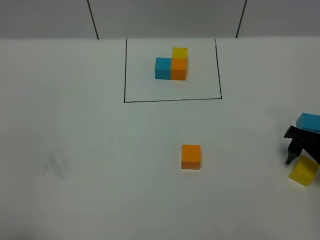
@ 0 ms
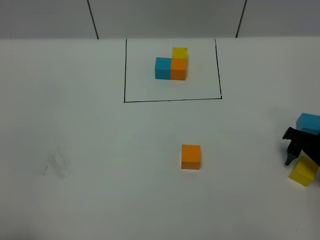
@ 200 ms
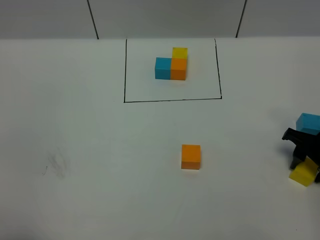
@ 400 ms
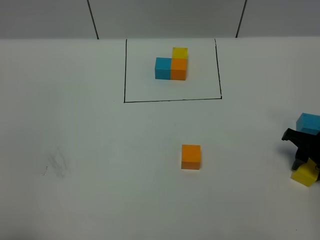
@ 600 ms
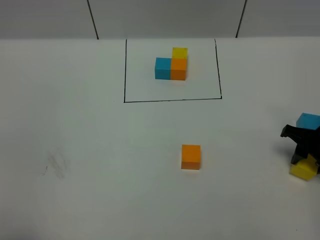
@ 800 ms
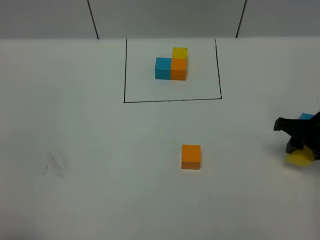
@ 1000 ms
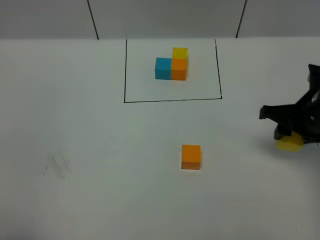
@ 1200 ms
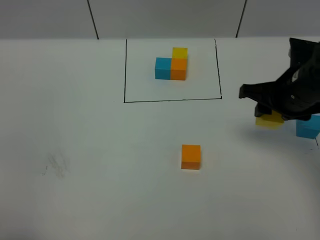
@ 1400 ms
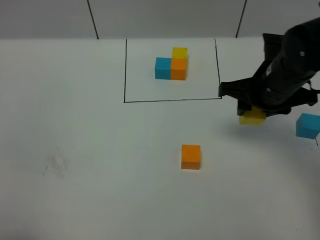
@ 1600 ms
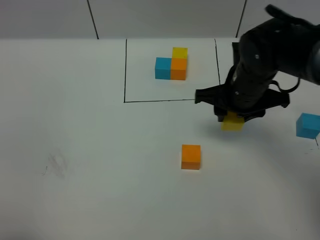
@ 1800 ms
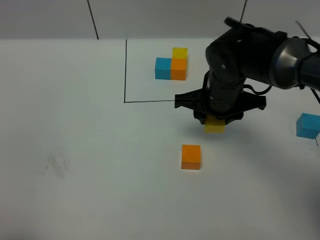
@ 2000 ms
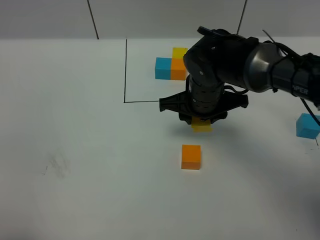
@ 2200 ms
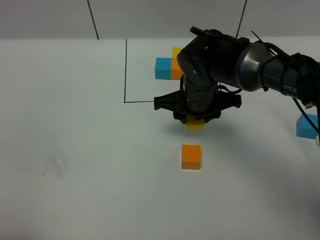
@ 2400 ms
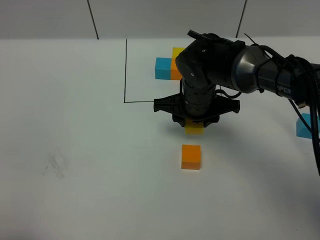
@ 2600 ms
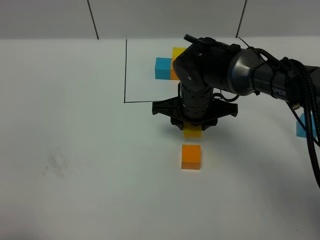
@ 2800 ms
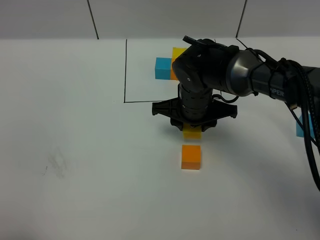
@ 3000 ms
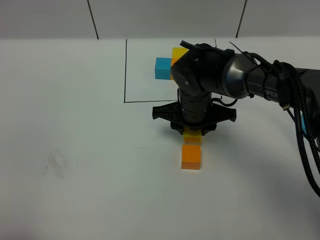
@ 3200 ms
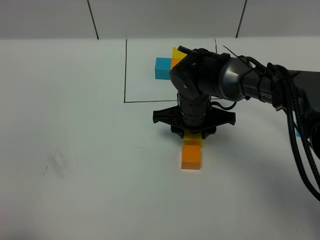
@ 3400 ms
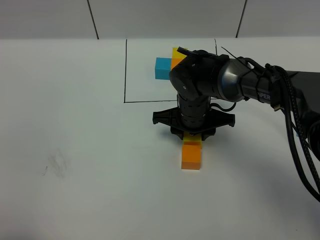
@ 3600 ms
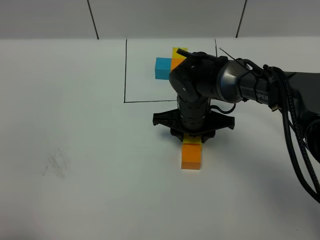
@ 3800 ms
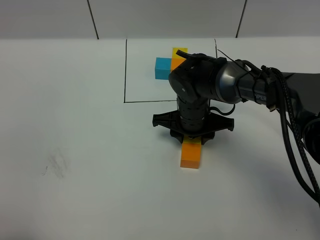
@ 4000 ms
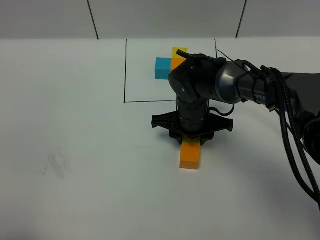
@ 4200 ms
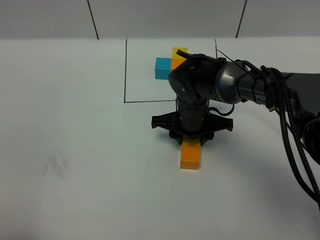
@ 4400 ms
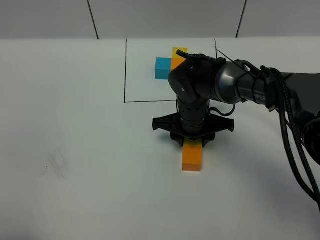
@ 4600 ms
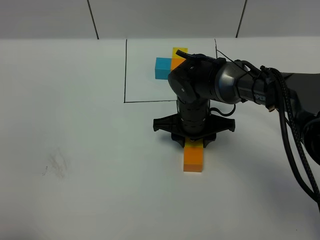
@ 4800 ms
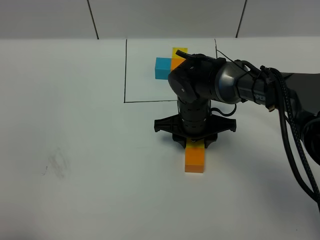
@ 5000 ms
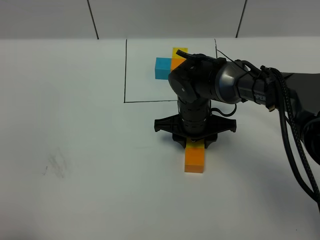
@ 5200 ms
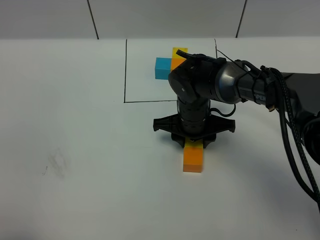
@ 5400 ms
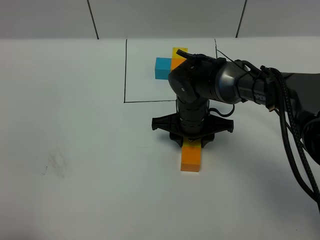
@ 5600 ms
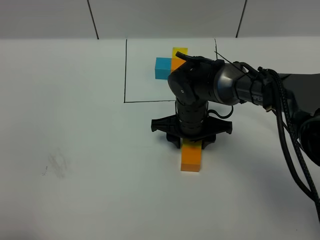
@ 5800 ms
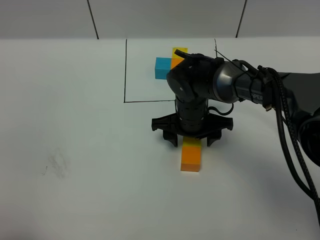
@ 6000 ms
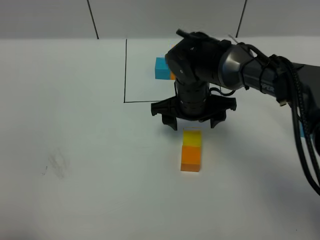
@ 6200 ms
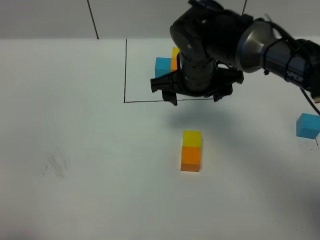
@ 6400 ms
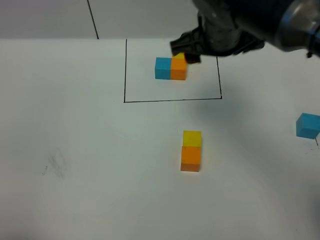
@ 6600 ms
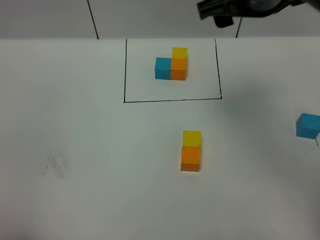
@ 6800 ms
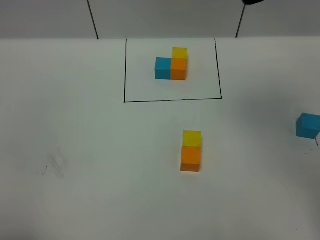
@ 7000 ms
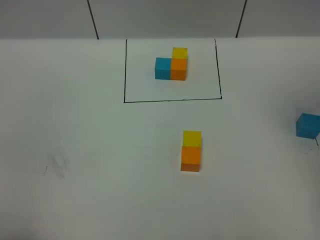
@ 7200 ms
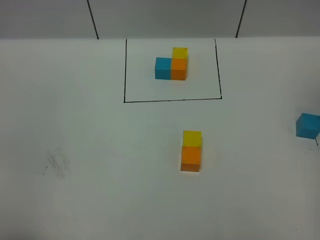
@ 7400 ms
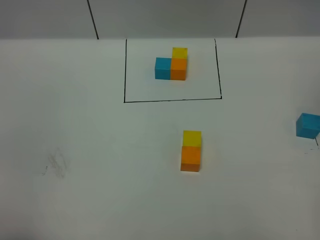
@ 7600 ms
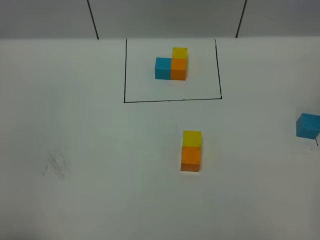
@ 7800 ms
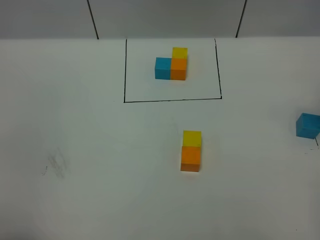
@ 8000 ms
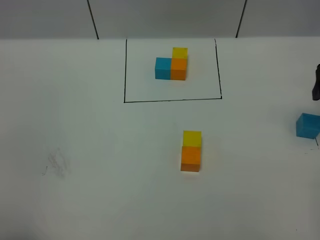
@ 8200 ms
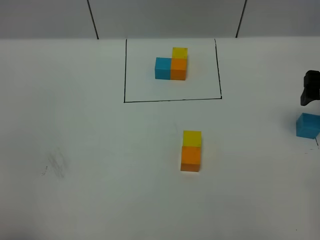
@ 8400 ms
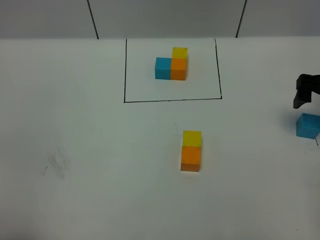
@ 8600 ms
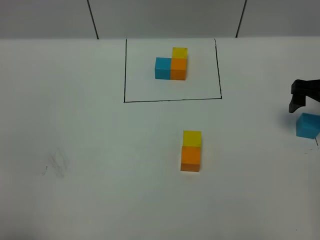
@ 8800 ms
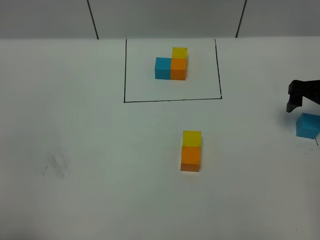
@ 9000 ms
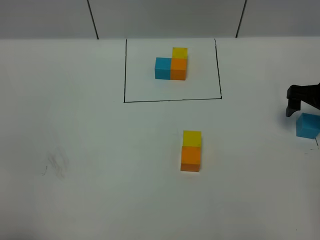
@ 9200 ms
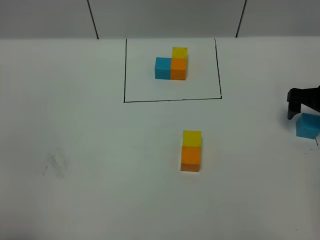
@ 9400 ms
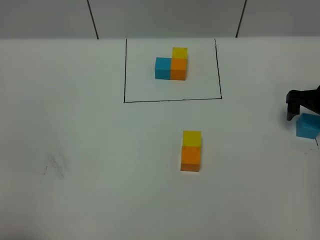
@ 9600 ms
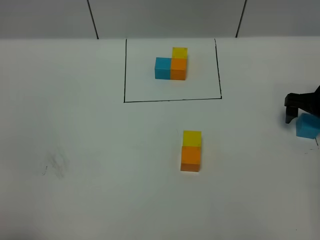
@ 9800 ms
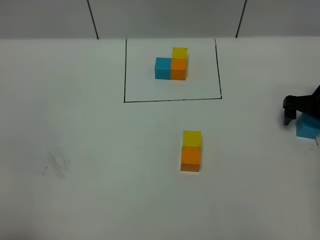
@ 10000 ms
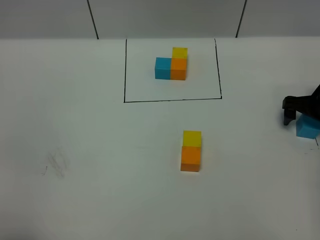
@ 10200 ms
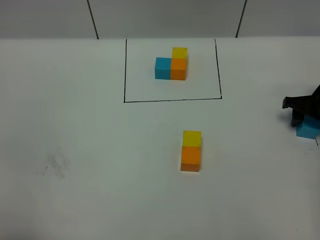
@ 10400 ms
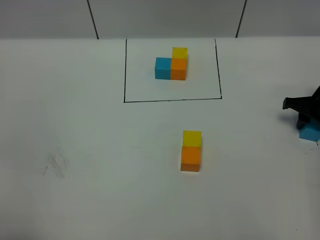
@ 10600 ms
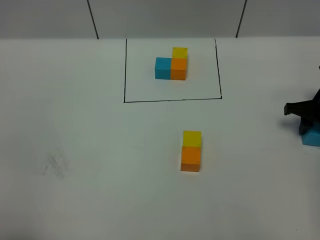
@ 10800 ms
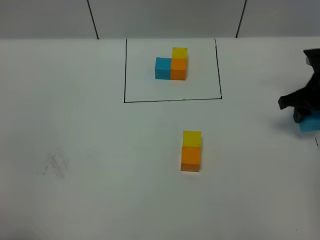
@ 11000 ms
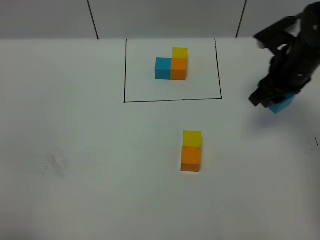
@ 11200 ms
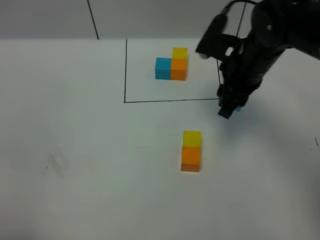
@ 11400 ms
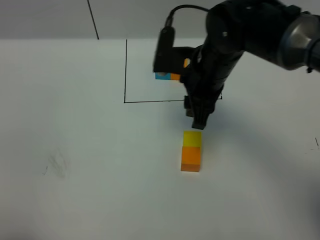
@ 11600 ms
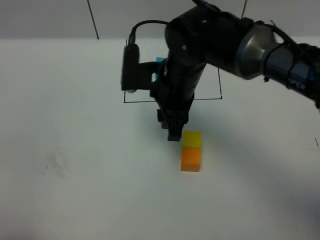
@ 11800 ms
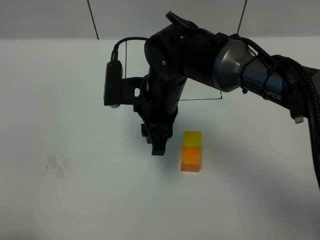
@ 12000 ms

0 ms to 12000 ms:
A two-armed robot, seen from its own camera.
Task of the whole recording: According to the building block template in front, assemble the scattered blocks together.
Step, 0 ms to 6000 ms: Put the yellow cube on the behind of the orange cube.
0 ms to 1600 ms: The right gripper moves to the left and upward, some 15 cm, and closes.
1600 ms to 3000 ms: The right gripper is displaced to the left and downward by roughly 15 cm.
3000 ms to 4400 ms: The grippers make only small movements.
4400 ms to 6000 ms: The right gripper opens.
6000 ms to 7600 ms: The right gripper travels upward and to the right by roughly 40 cm, and opens.
7600 ms to 9000 ms: The right gripper is displaced downward by about 25 cm.
9000 ms to 10400 ms: The right gripper goes about 5 cm downward, and closes.
10400 ms to 12000 ms: The right gripper travels to the left by approximately 35 cm.

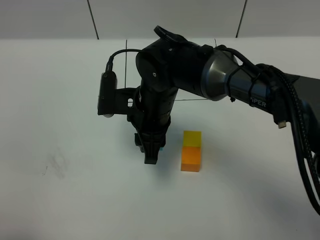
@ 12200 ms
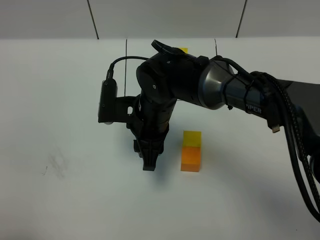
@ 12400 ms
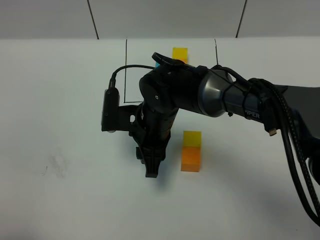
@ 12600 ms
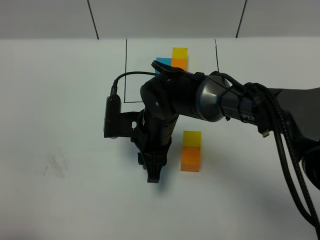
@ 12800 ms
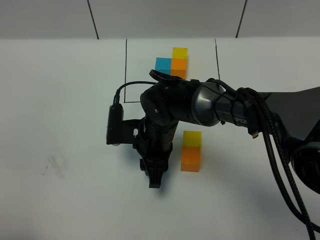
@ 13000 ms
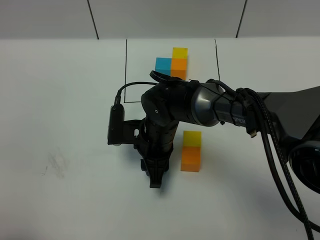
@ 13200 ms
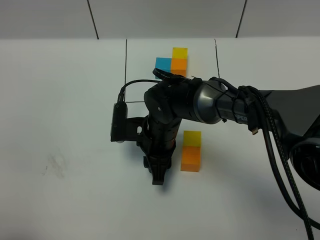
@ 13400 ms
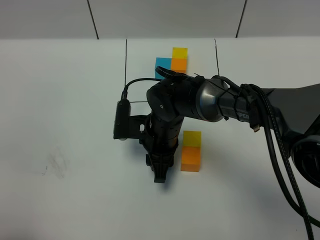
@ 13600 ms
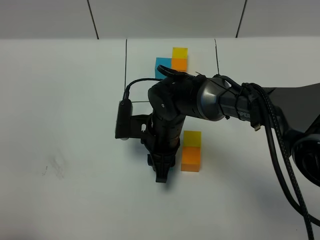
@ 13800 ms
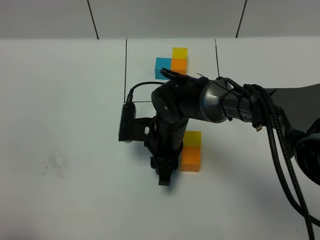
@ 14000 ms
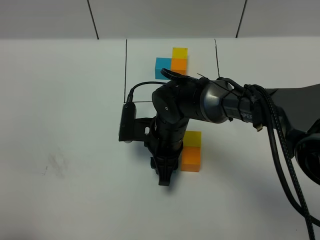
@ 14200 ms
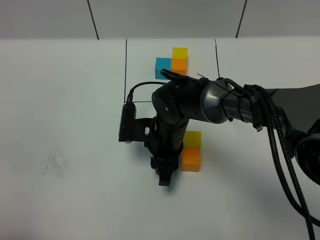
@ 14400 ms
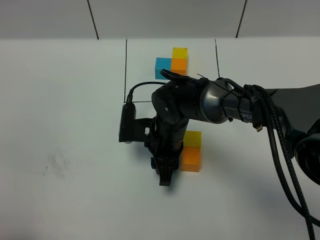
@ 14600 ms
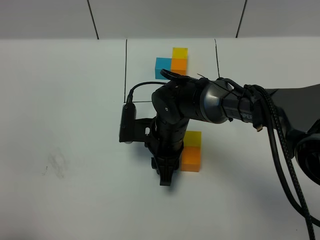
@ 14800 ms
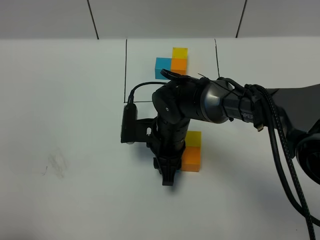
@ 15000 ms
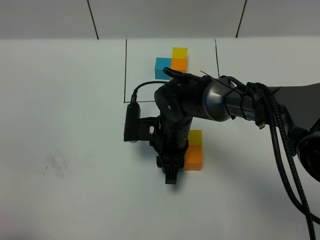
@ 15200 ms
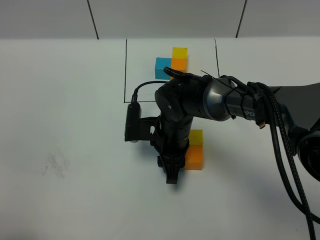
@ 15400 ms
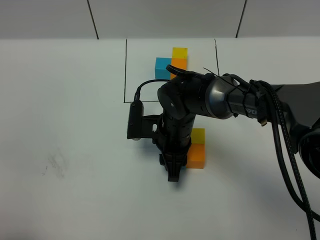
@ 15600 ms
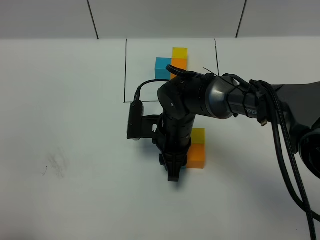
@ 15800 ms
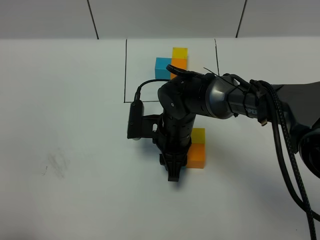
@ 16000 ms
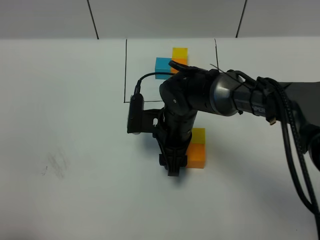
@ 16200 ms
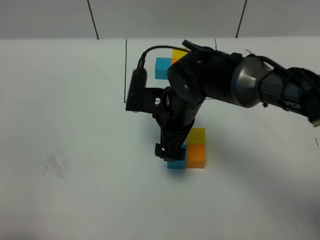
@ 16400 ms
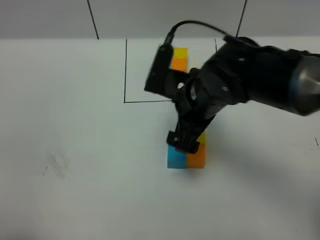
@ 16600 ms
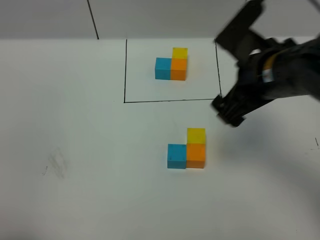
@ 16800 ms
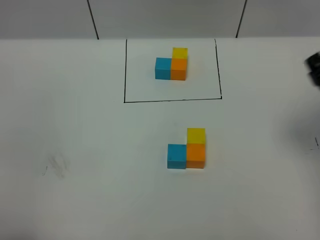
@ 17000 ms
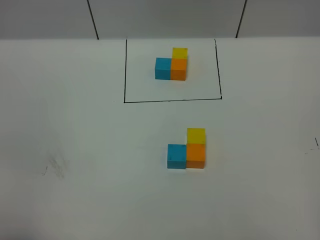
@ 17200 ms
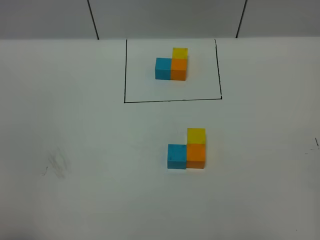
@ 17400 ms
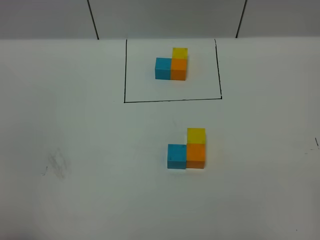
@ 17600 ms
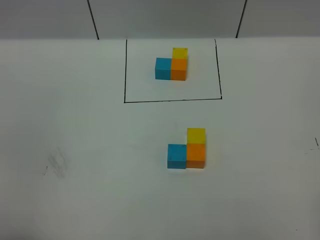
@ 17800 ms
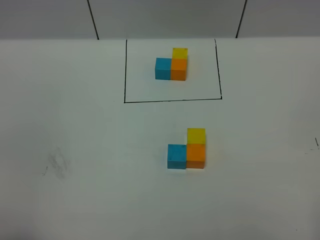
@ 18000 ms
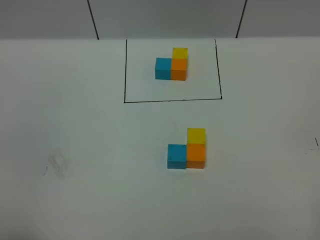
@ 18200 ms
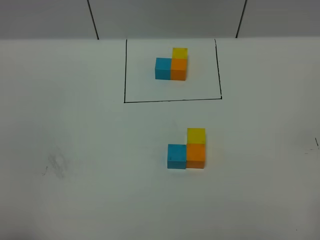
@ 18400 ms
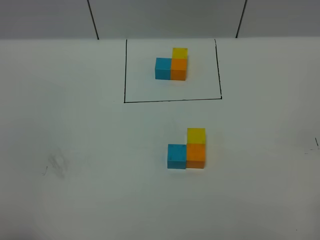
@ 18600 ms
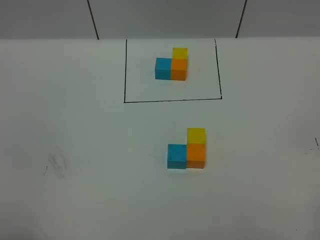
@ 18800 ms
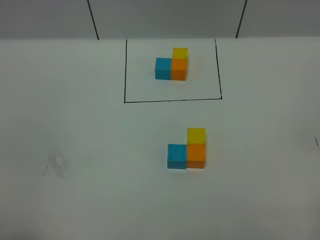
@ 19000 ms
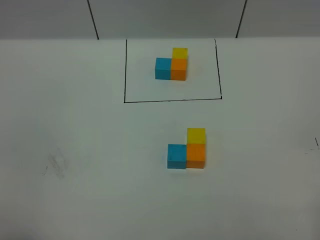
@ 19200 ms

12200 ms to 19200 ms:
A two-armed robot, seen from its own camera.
Task of the whole recording: According to the building block template in front, assemble the scattered blocks together.
12200 ms to 13600 ms: The right gripper moves downward, some 5 cm.
13600 ms to 15000 ms: There are only small adjustments of the grippers.
15000 ms to 16400 ms: The right gripper shifts approximately 10 cm upward, and opens up.
16400 ms to 17800 ms: The right gripper shifts about 40 cm backward, to the right and upward.
